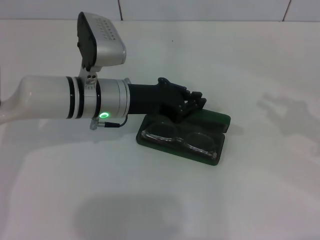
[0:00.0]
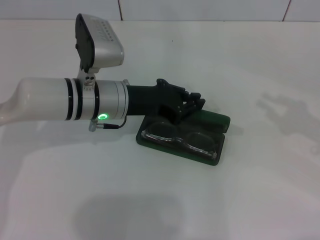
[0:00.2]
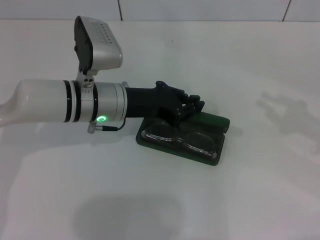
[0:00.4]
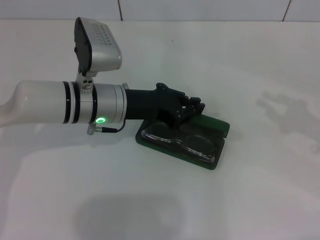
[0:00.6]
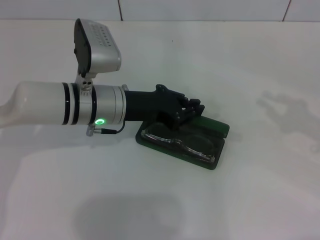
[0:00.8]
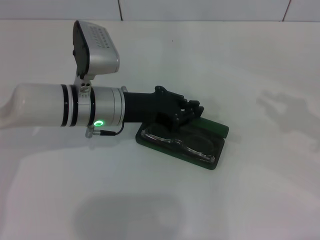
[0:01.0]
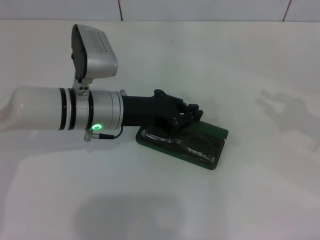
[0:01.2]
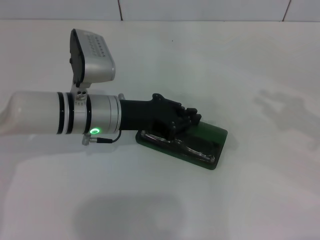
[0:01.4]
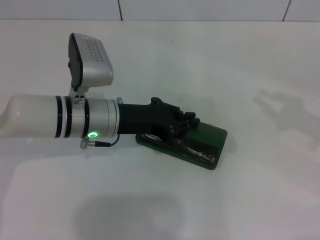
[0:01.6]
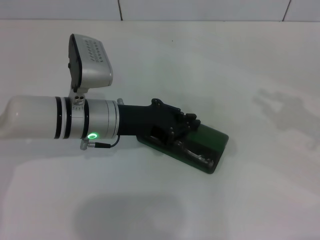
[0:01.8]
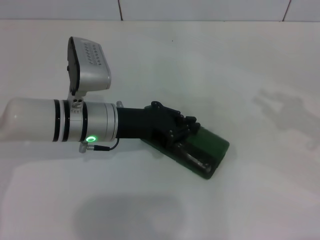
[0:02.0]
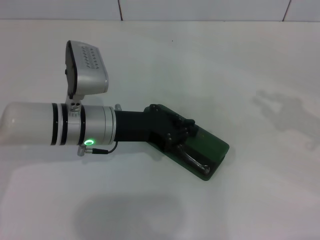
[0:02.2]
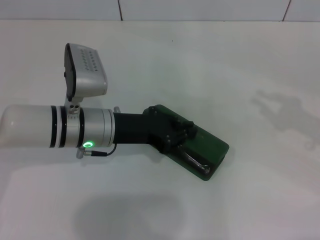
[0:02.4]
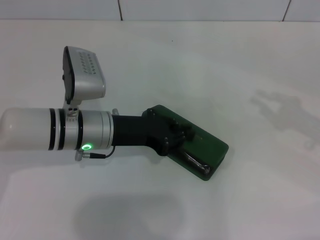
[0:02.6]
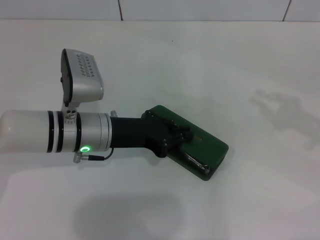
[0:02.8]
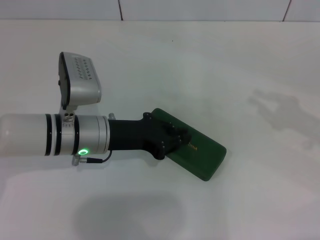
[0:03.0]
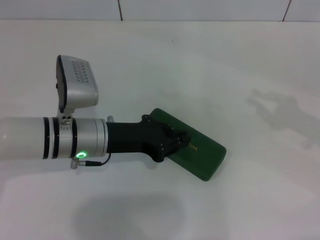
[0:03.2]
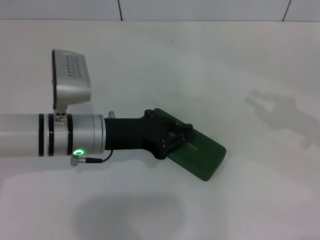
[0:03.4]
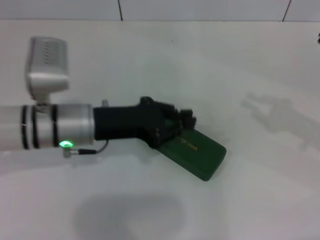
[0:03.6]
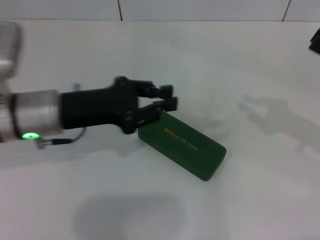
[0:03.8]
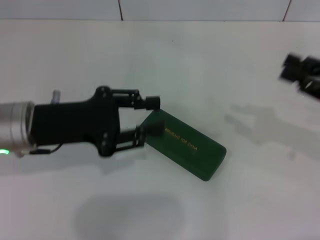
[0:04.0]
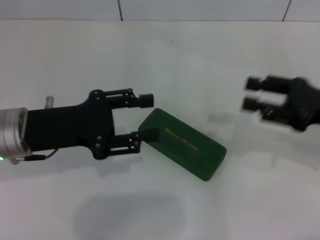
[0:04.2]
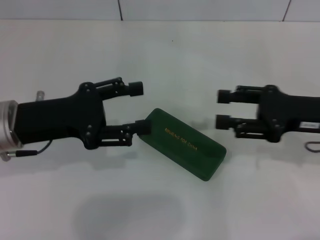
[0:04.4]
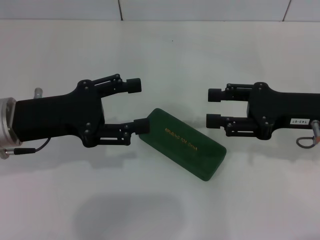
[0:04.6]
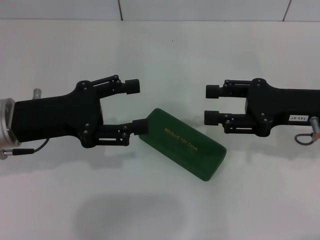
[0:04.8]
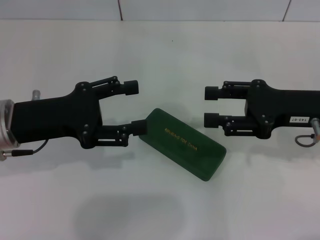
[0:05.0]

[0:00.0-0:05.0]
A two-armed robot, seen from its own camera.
Step, 0:00.0 to 0:02.8: Close the glasses case with your left hand.
0:00.0 to 0:01.6: The grippers make only small movements.
0:01.6 to 0:03.4: There are only small adjustments of the grippers.
0:03.4 to 0:05.0: The right gripper moves to the left, some 10 cm, and opens up, while the left gripper shifts about 10 cm to the left and upward, and opens up.
